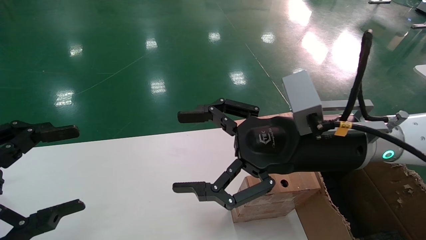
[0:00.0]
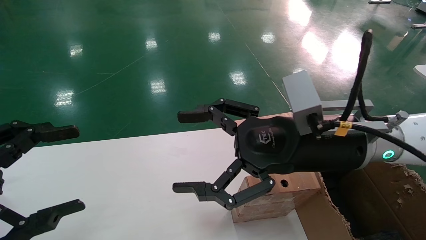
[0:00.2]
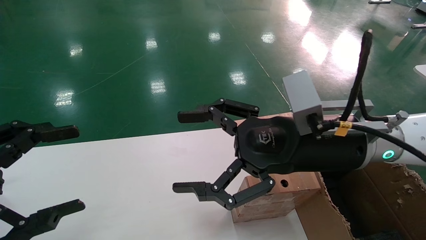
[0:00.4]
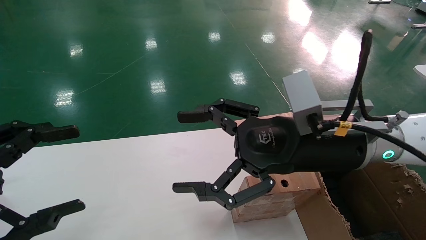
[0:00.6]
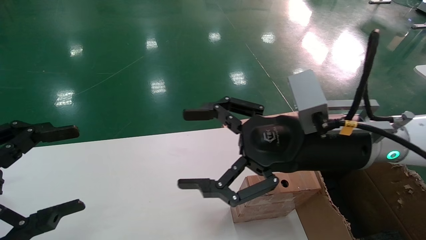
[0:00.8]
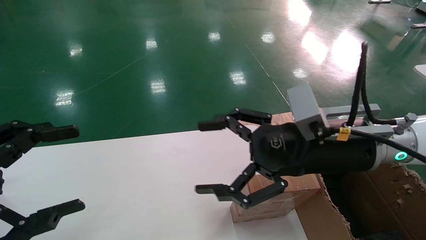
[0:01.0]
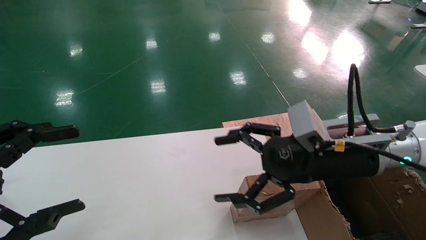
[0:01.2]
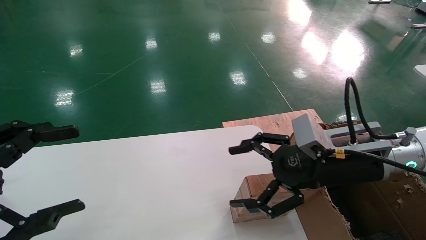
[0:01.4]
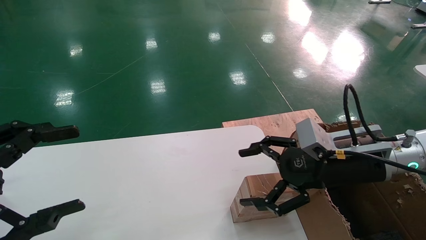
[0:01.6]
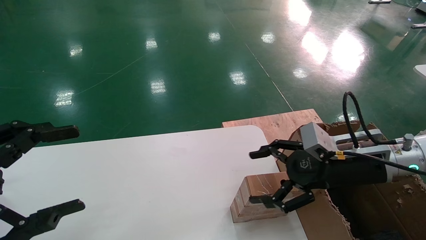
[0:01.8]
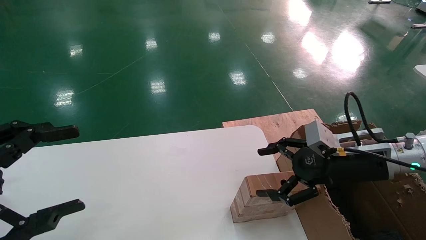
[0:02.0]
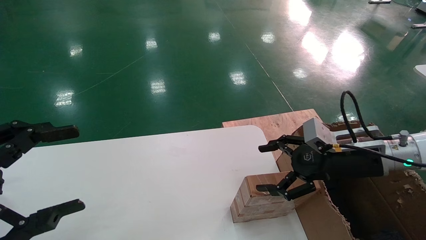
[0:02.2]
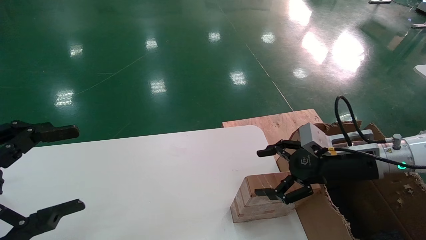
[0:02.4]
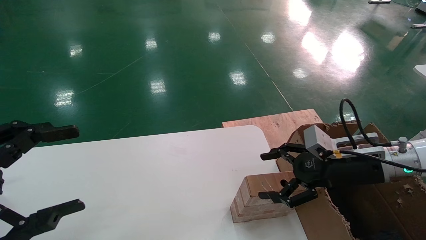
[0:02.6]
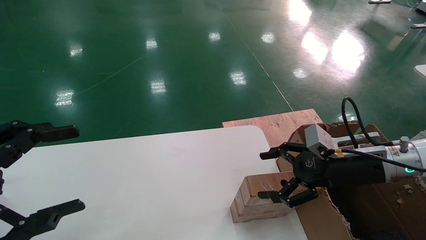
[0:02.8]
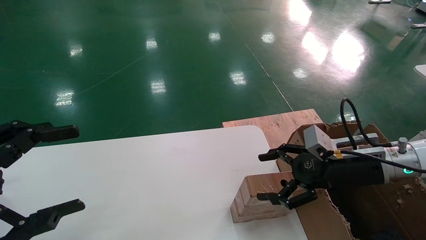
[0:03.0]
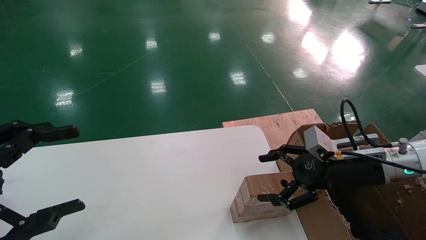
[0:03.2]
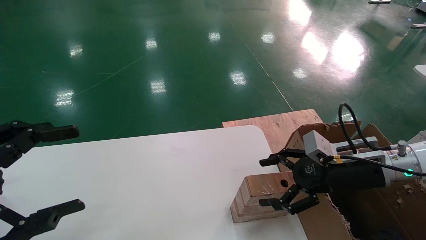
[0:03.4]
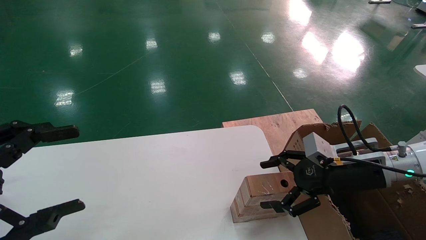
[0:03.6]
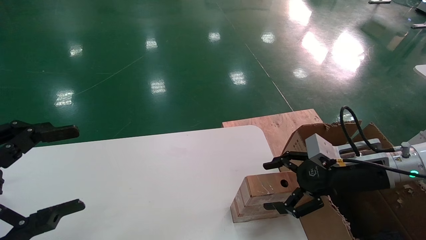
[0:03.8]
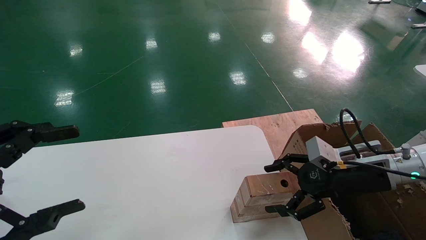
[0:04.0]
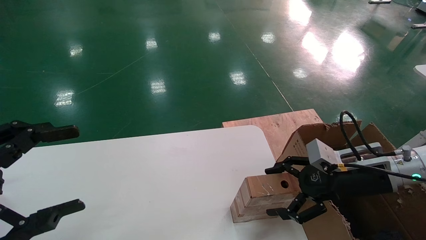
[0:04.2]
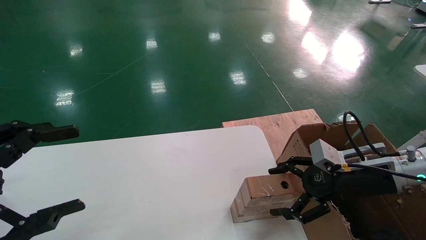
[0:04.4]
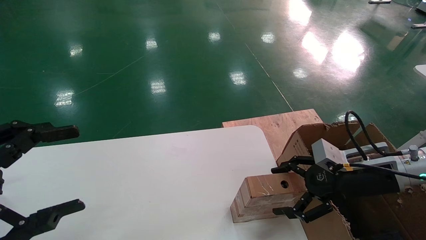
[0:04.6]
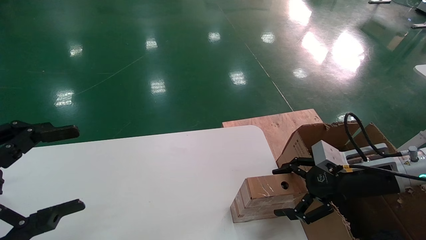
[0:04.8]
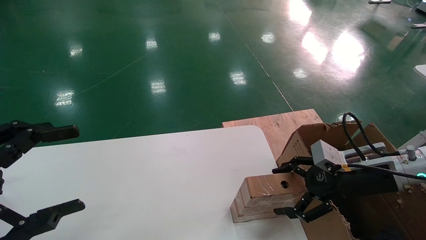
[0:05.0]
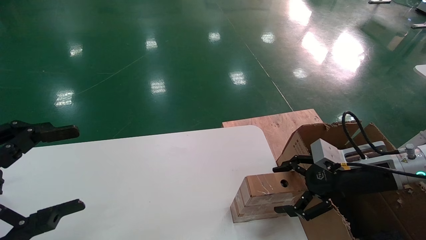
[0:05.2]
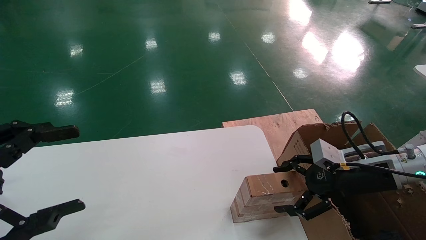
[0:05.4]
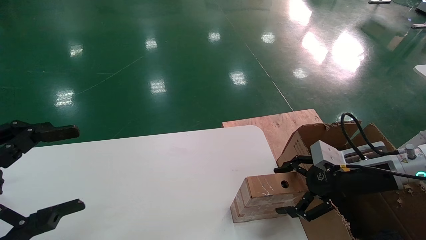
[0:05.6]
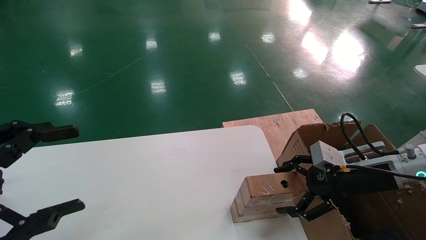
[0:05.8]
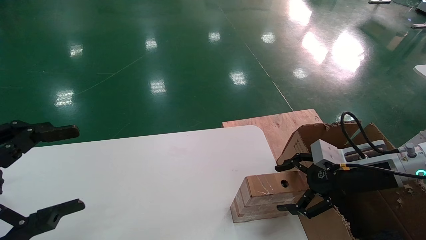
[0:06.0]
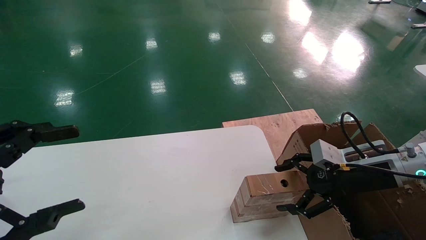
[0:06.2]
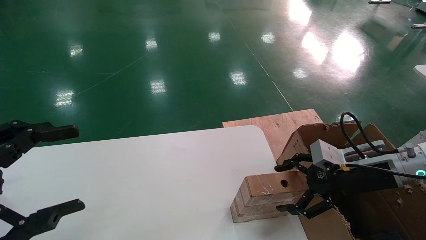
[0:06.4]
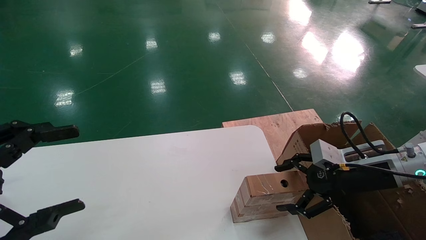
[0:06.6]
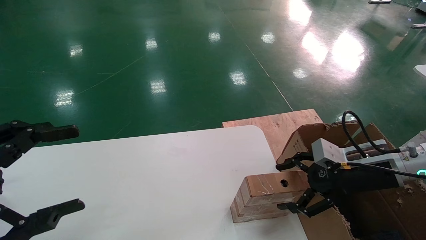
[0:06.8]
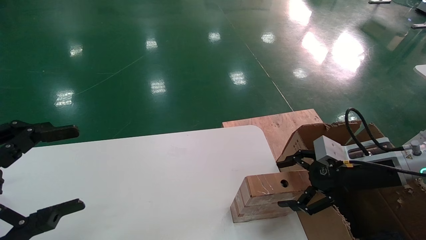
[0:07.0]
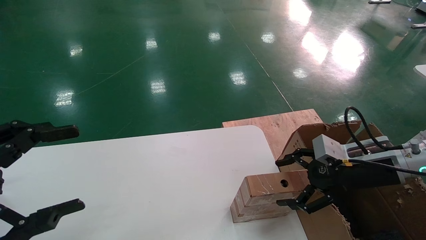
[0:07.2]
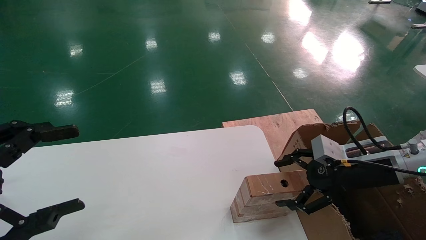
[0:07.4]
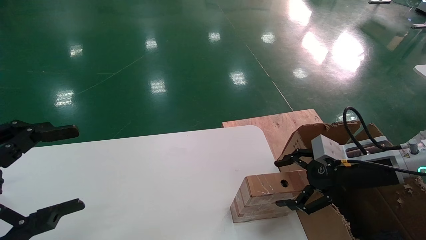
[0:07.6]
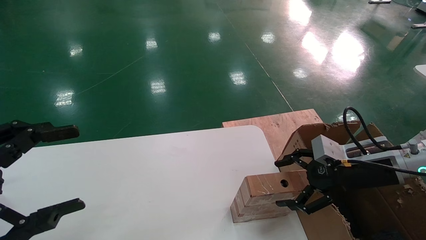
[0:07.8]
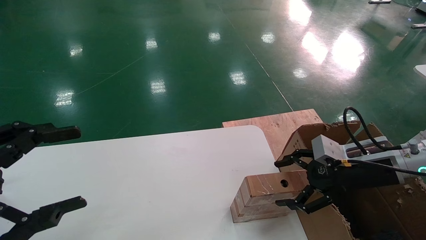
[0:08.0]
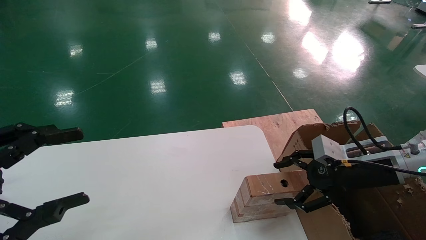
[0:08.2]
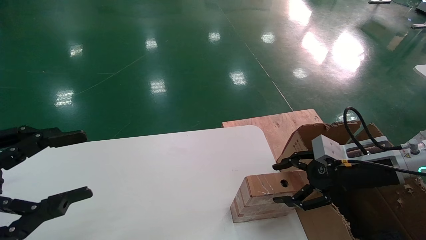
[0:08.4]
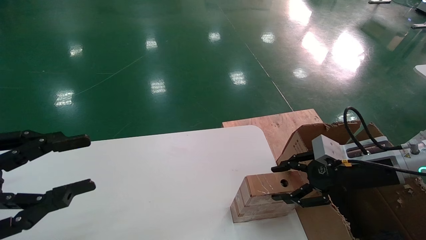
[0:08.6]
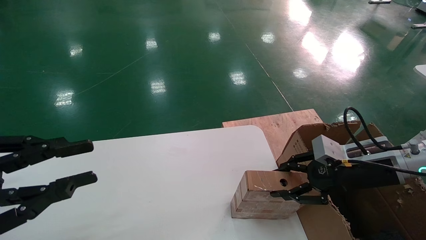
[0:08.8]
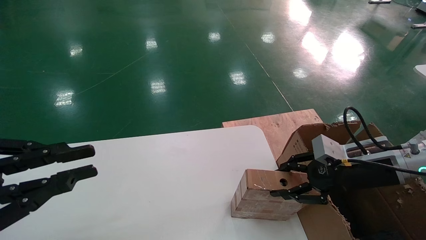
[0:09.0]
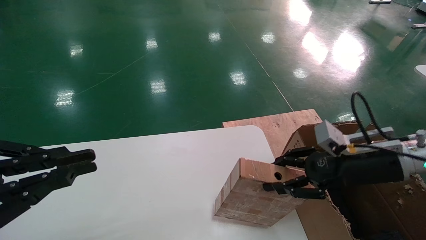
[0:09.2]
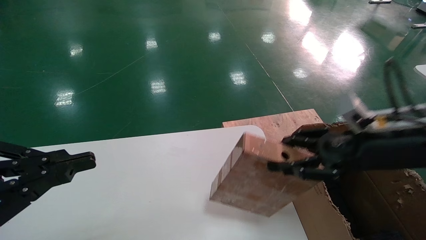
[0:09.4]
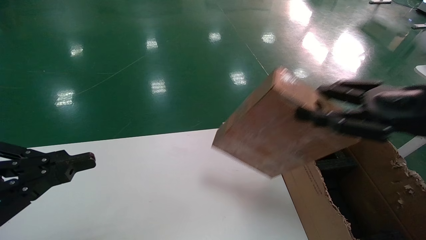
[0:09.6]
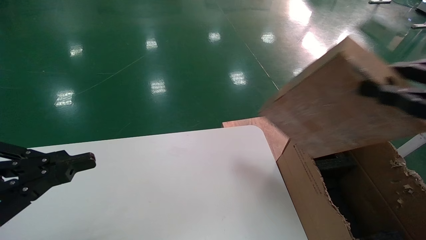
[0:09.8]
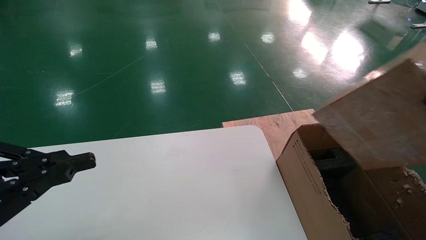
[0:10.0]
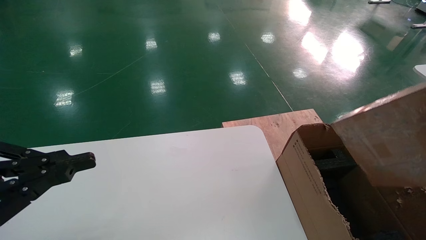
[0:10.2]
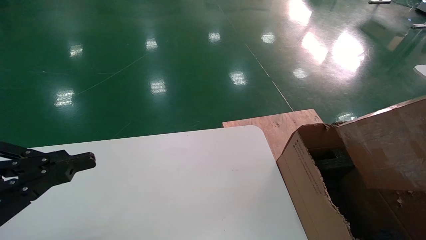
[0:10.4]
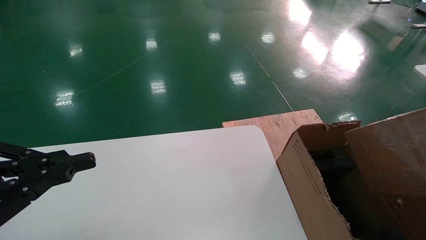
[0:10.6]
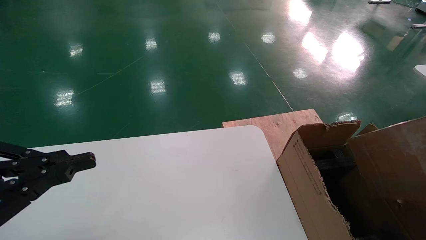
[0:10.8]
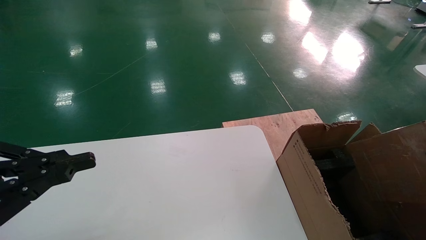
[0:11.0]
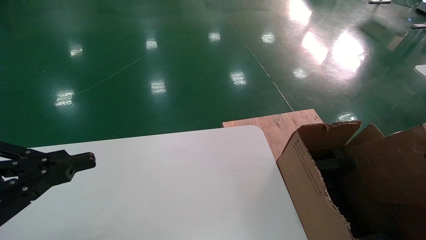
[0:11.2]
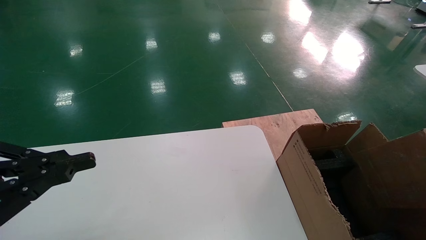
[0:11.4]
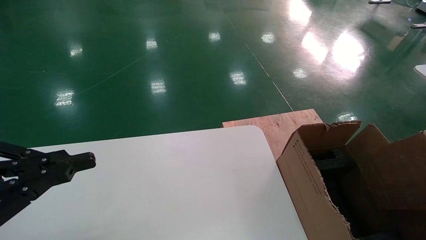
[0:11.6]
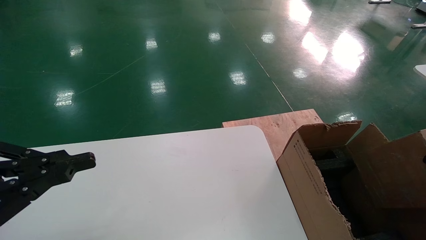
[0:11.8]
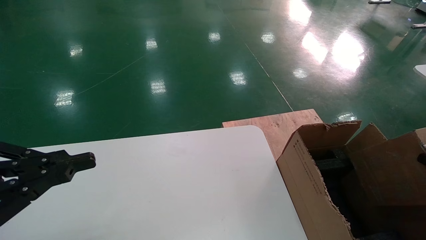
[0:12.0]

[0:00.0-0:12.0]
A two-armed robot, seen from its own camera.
Task of the whole recording: put the box on the table into the big box.
Step, 0:01.2 to 0:09.0: Pick up the mouse and the power cord paper box.
0:00.0 to 0:01.6: The right gripper moves to the right and downward, some 10 cm.
0:01.6 to 0:03.0: The right gripper ends up about 5 cm from where it was.
0:03.0 to 0:06.0: The grippers stay close to where they were, moving slightly.
0:06.0 to 0:07.6: Both grippers stay put.
0:07.6 to 0:09.0: The right gripper closes, while the left gripper closes.
0:09.0 to 0:10.4: The right gripper goes about 30 cm backward and to the right.
0:10.4 to 0:12.0: The right gripper is displaced downward, to the right and forward by approximately 15 cm.

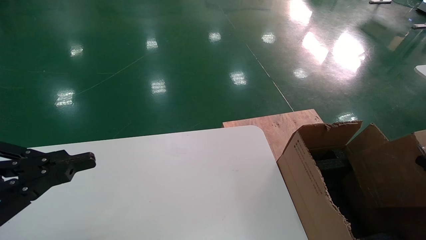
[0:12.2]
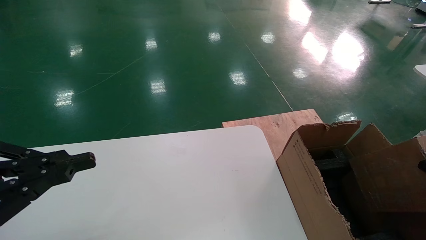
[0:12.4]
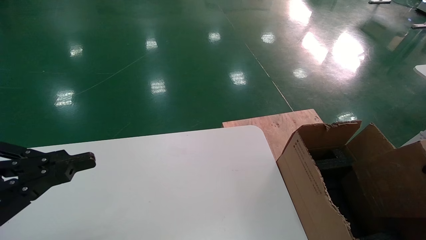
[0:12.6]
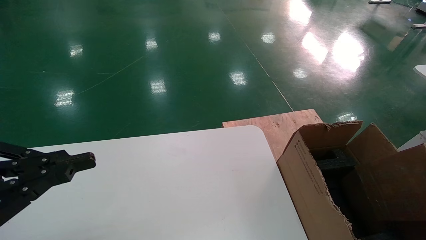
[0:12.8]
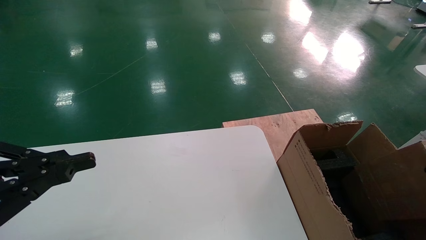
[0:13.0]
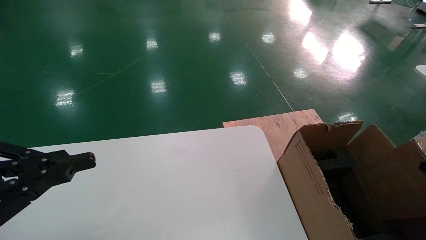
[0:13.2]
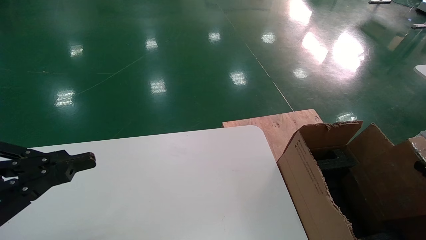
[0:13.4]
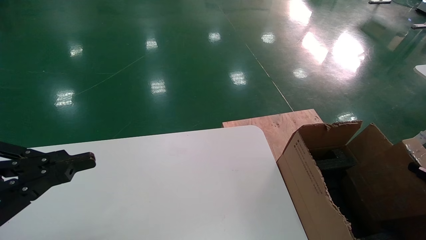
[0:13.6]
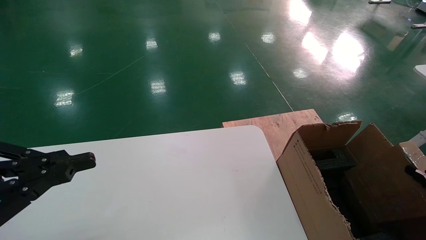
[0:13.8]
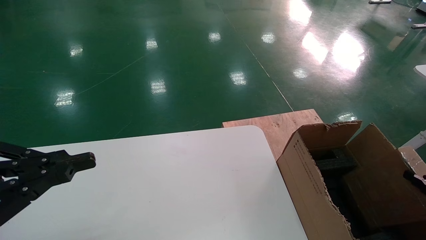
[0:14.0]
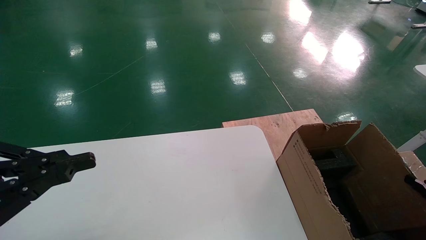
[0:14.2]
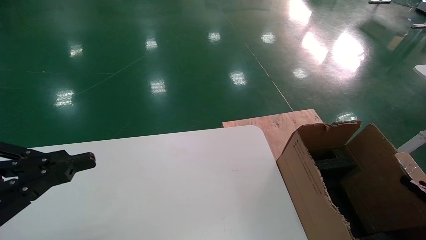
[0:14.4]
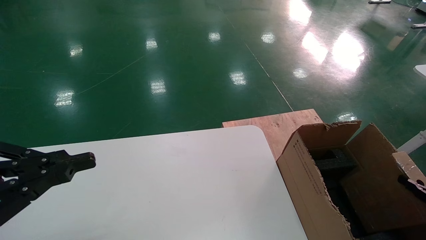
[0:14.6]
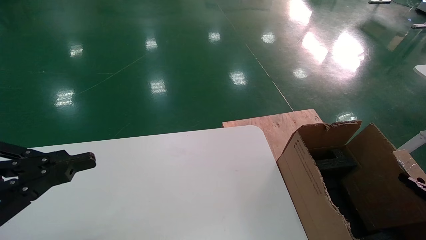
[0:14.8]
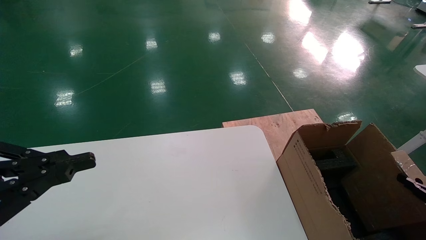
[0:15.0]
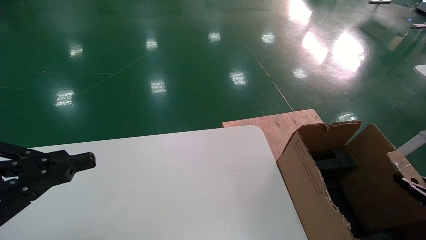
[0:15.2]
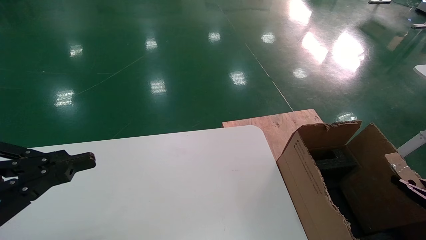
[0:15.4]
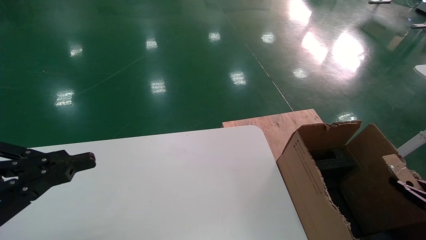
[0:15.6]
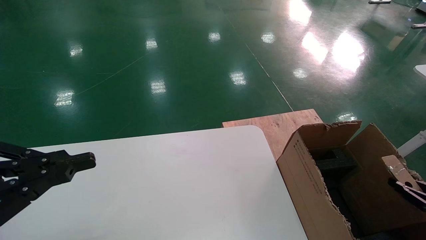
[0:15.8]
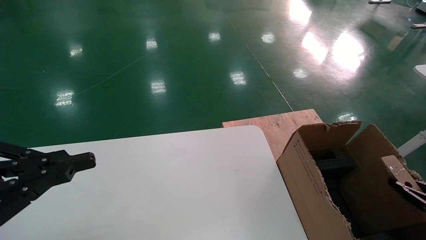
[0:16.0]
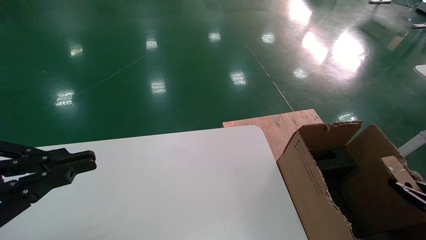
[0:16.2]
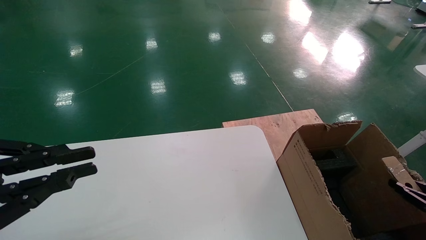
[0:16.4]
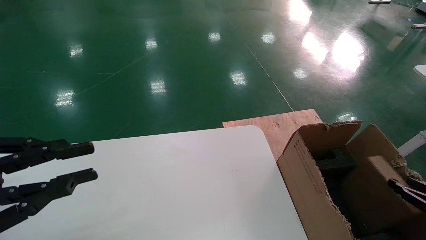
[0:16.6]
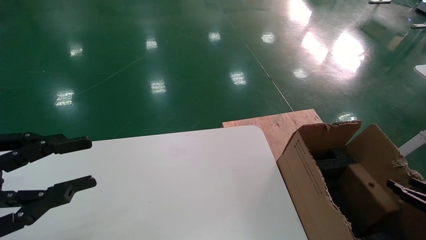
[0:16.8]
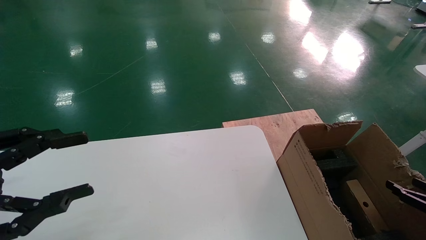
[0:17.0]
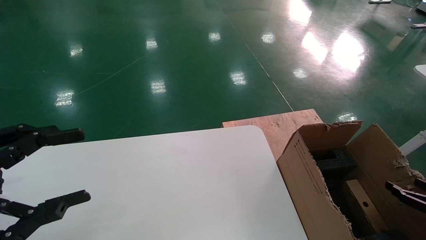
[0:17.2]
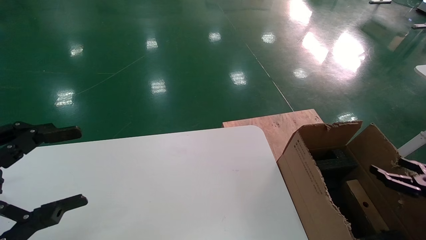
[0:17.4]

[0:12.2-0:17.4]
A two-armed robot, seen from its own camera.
Task of the whole recording: put the box on the table into the big box.
Step, 0:12.2 to 0:16.8: Place the mouse and the power cord paper box into the container.
0:14.0 to 0:15.6: The grippers move only a little.
0:15.6 to 0:17.4: The left gripper opens its fingers; the right gripper moves some 5 cm, and opens.
